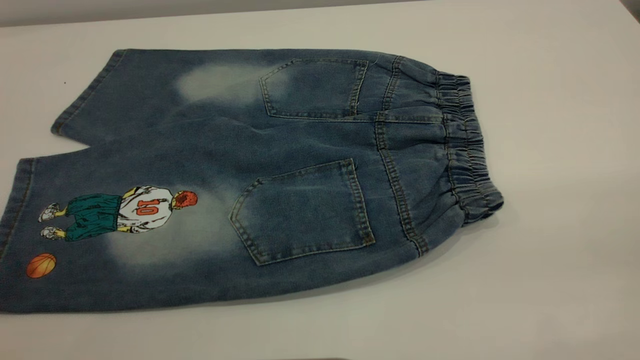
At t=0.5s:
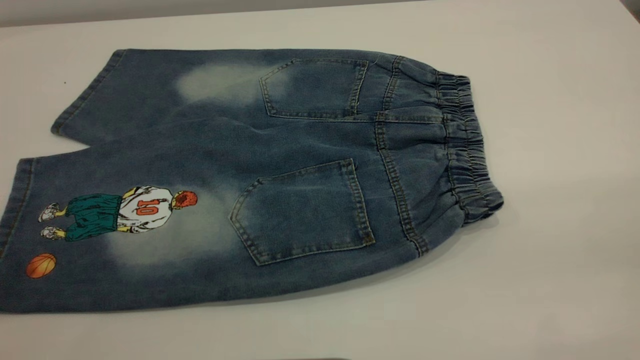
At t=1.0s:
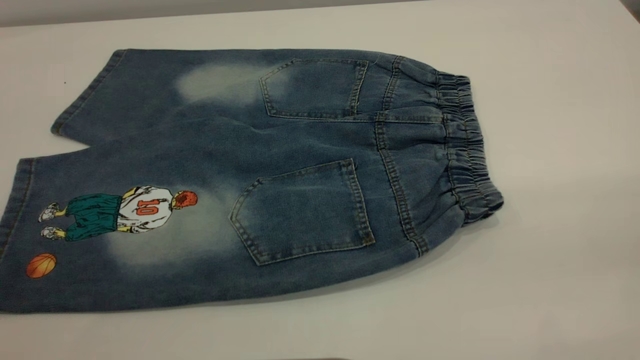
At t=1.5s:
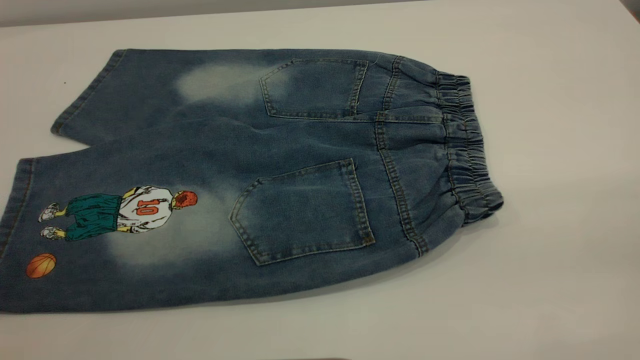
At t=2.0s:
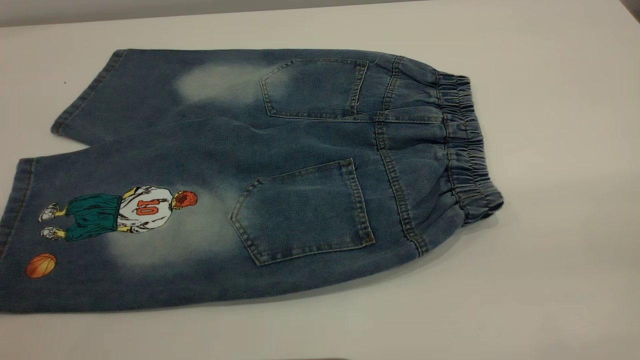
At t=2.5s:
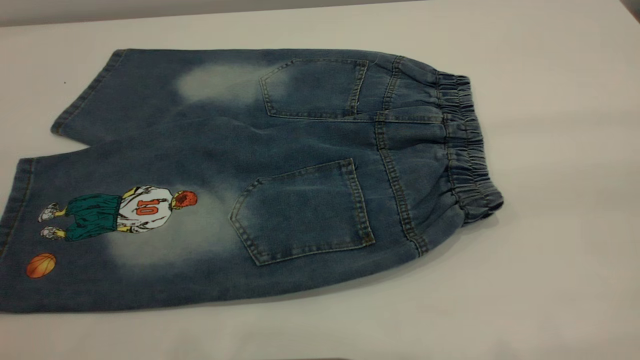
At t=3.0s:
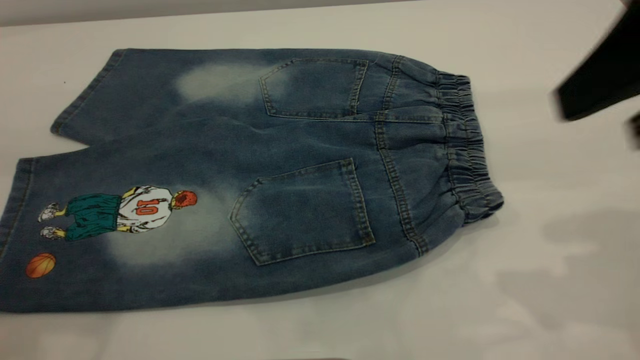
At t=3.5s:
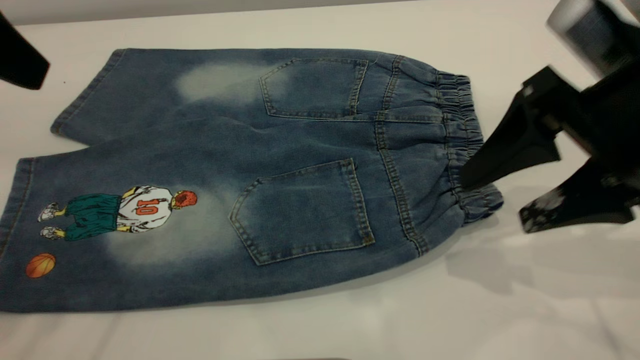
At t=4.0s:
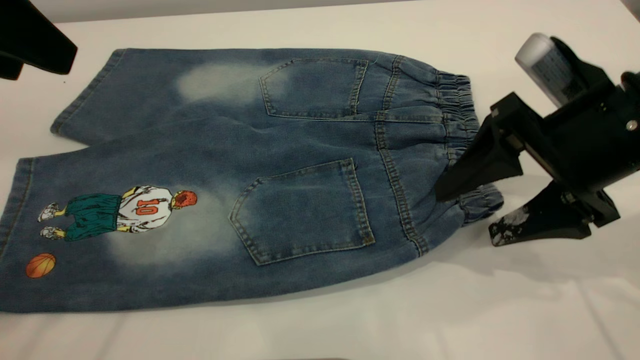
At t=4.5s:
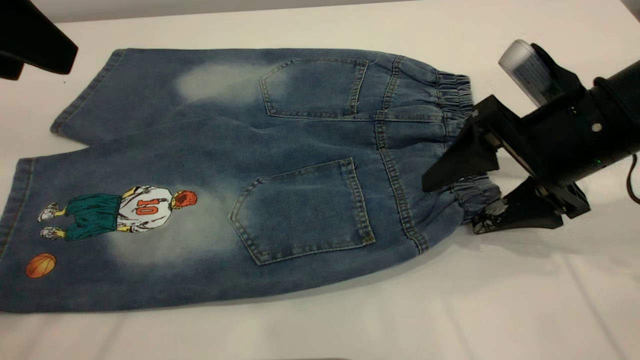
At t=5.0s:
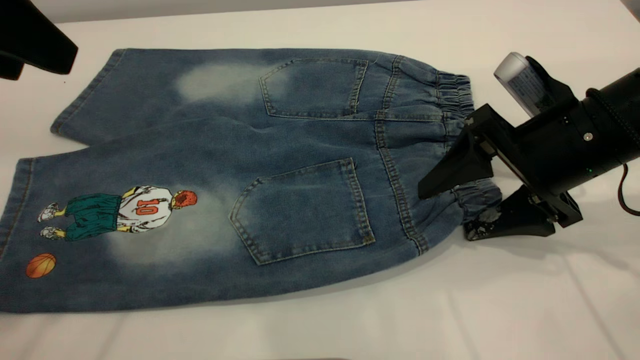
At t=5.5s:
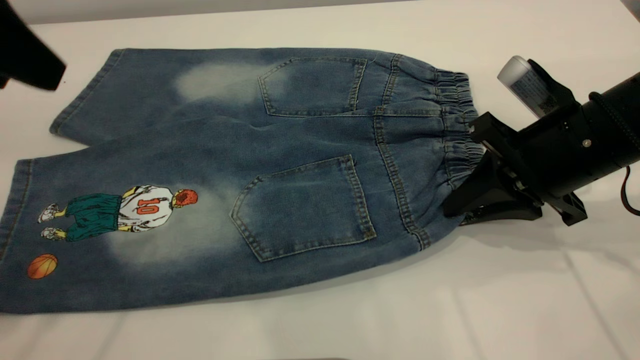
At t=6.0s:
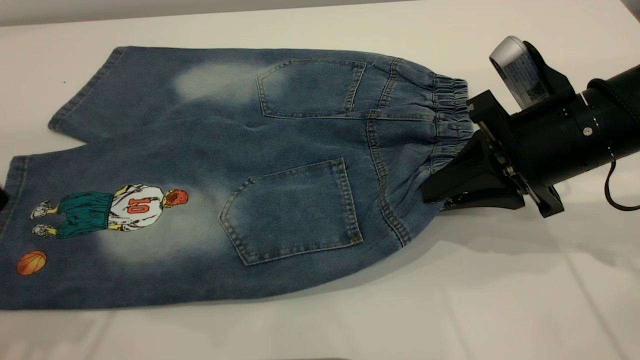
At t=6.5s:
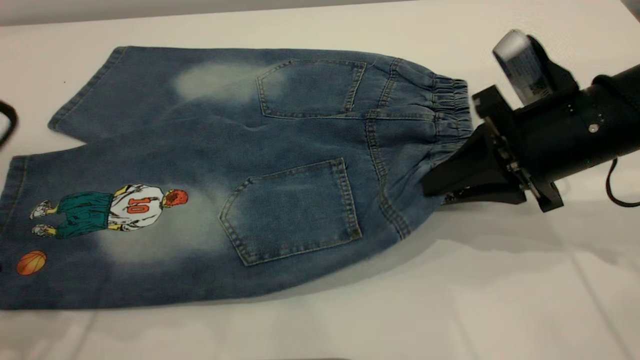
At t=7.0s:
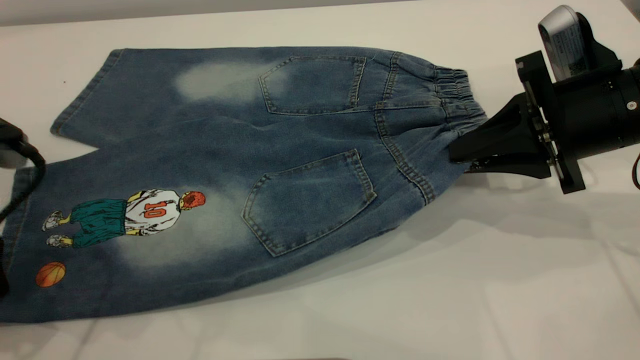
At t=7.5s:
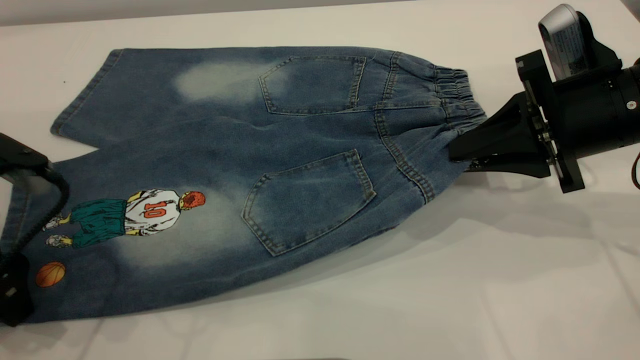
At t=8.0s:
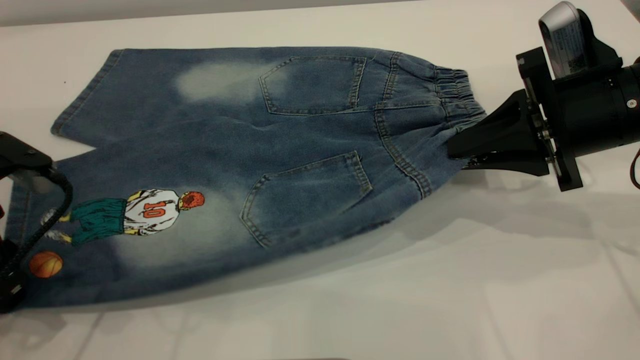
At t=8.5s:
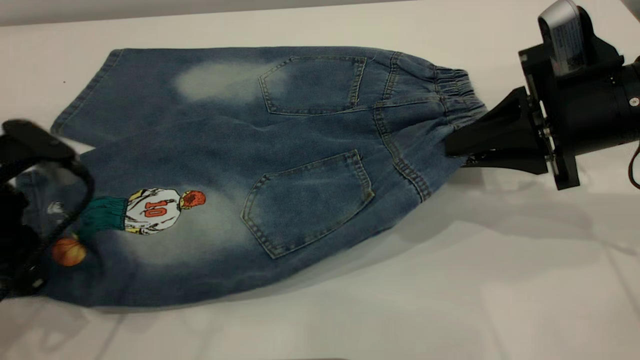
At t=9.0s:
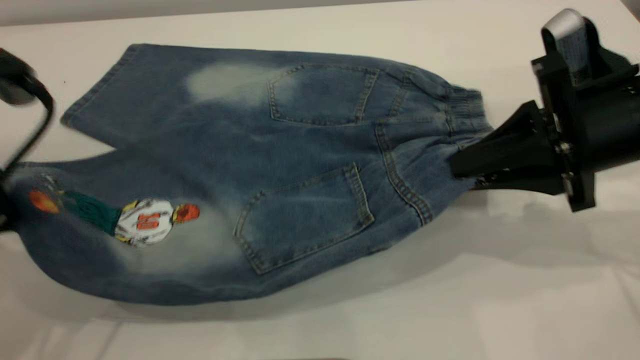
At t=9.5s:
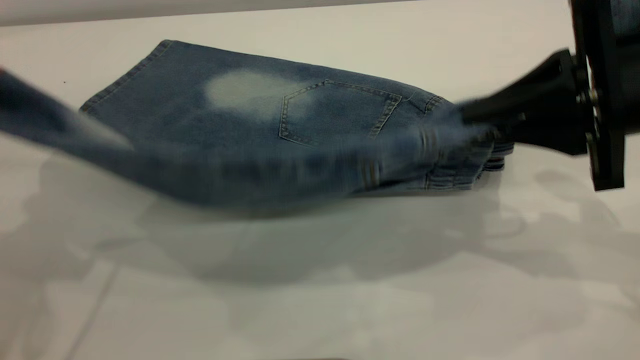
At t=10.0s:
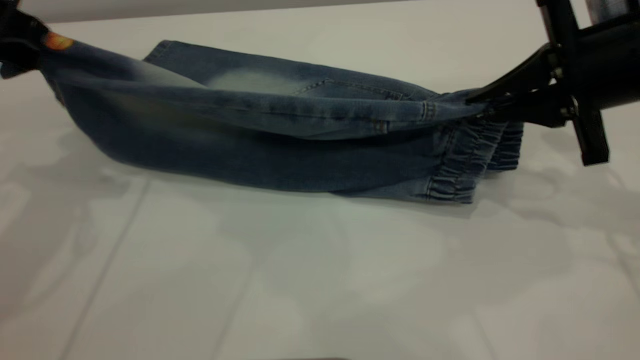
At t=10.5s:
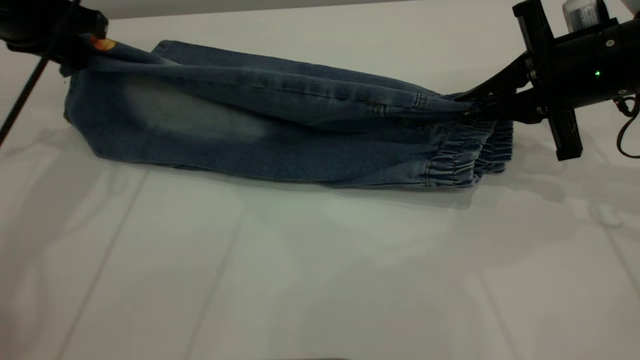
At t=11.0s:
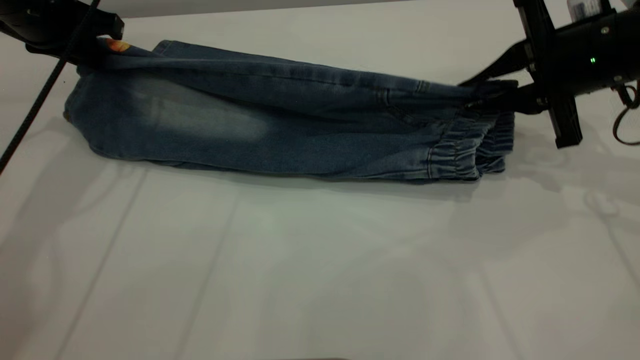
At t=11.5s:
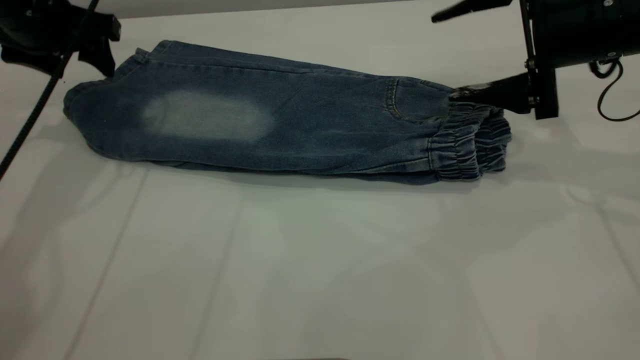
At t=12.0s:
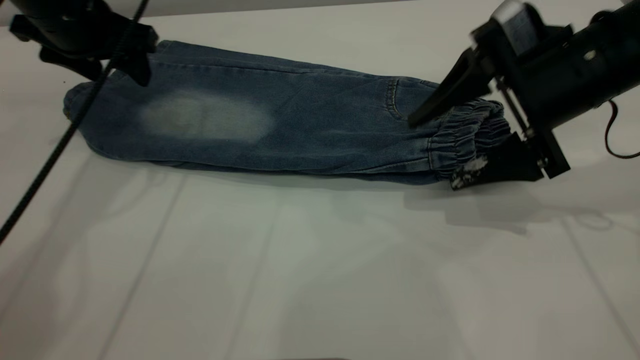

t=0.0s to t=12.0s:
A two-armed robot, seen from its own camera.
Step, t=0.0s to t=11.0s: Fold the bottom of the pants upward.
t=0.0s to t=2.0s: Both grippers stay put.
t=2.0s to t=4.0s: The right gripper moves forward and downward, about 35 cm. The left gripper heads forward, covering about 25 cm.
t=4.0s to t=6.0s: The right gripper closes up. Meanwhile the left gripper goes about 5 cm downward.
t=6.0s to t=8.0s: The left gripper heads downward, covering approximately 10 cm, and closes.
t=8.0s to t=10.0s: The left gripper travels upward and forward by roughly 15 cm.
t=10.0s to t=12.0s: The left gripper travels forward, downward and to the right by roughly 10 cm, and opens; the right gripper opens up.

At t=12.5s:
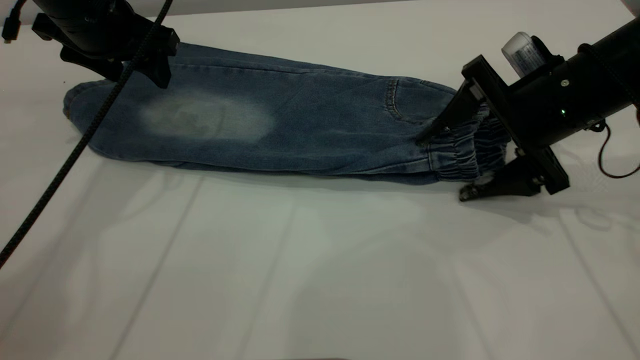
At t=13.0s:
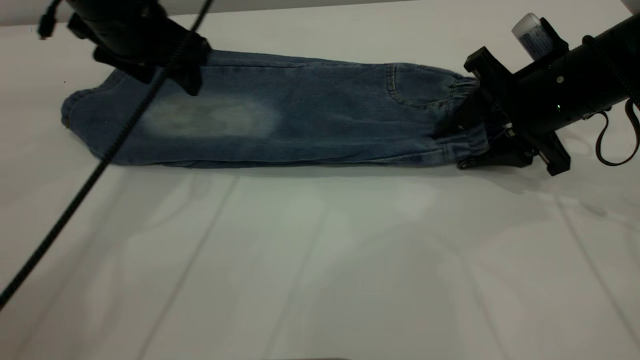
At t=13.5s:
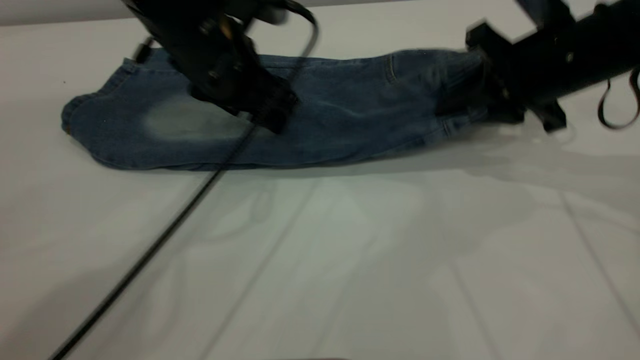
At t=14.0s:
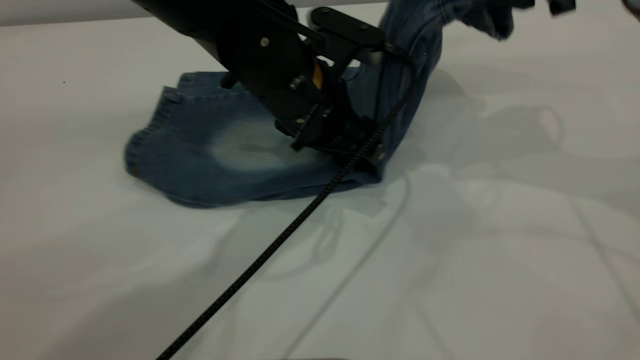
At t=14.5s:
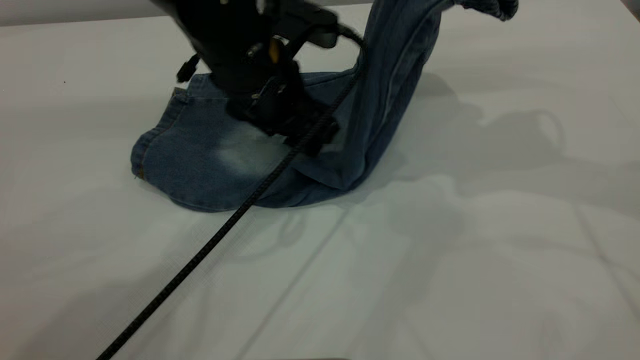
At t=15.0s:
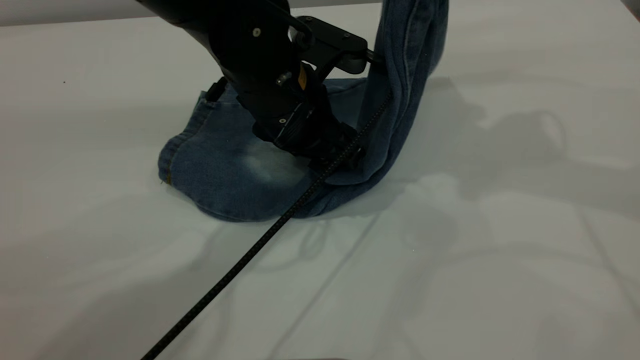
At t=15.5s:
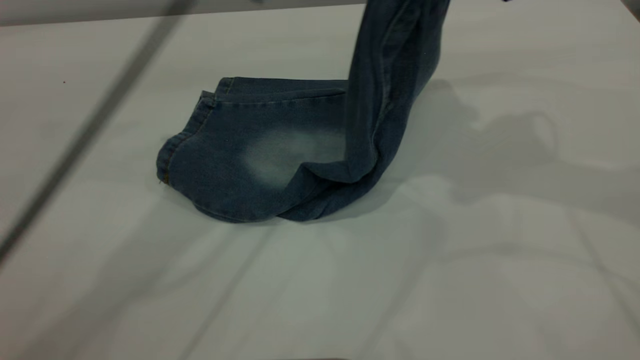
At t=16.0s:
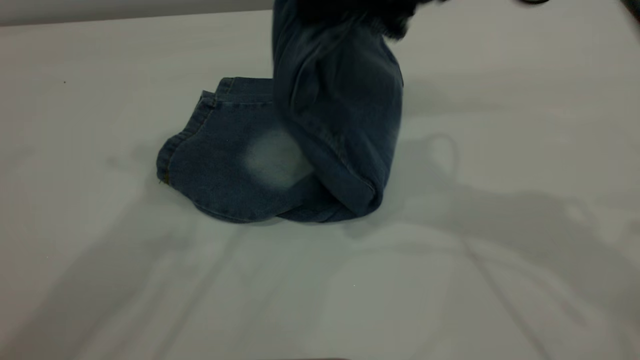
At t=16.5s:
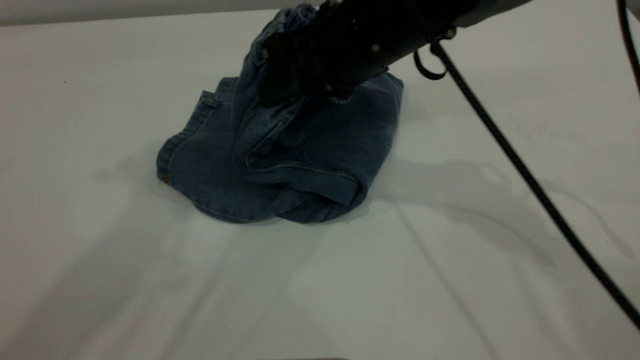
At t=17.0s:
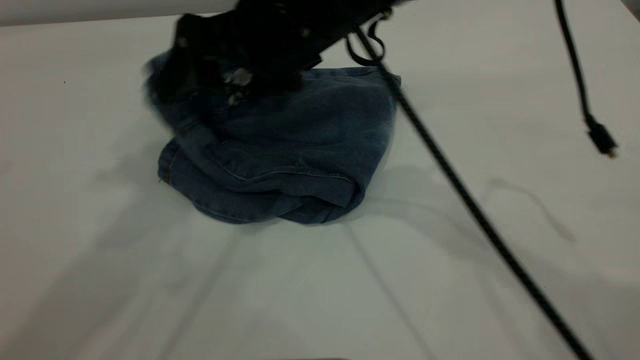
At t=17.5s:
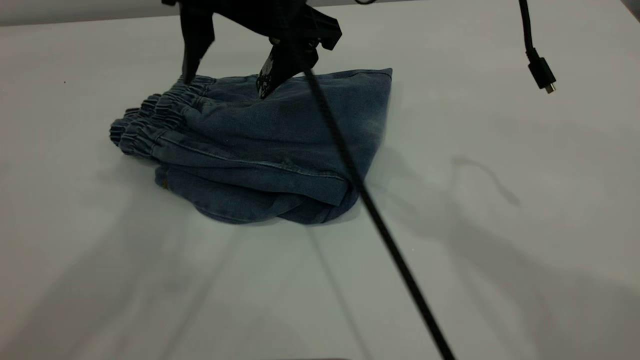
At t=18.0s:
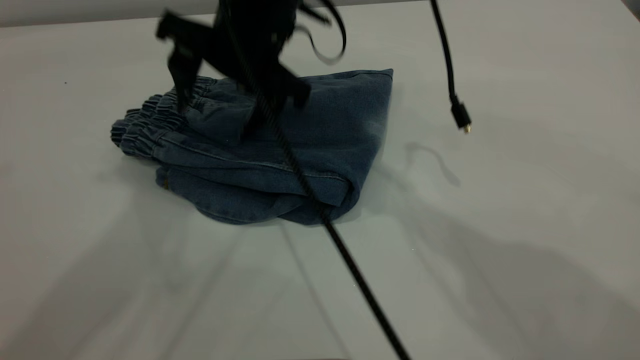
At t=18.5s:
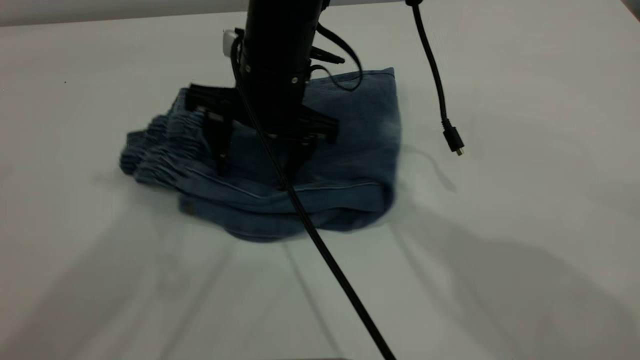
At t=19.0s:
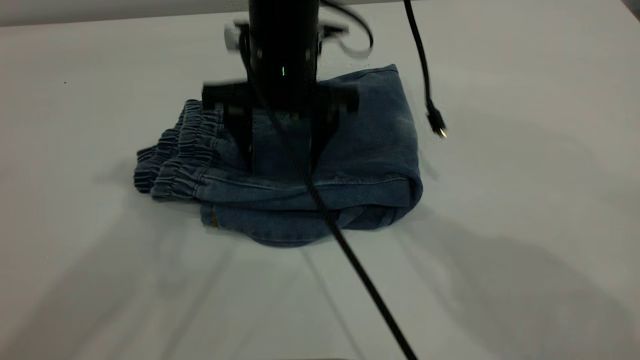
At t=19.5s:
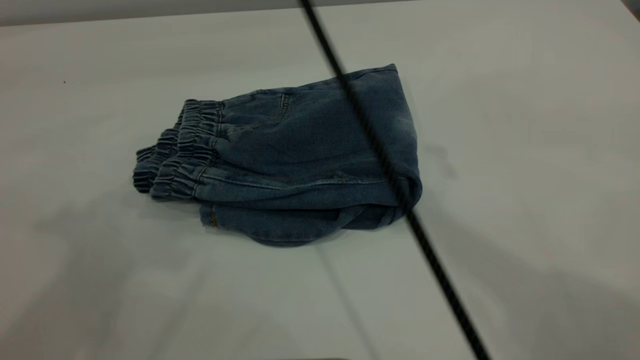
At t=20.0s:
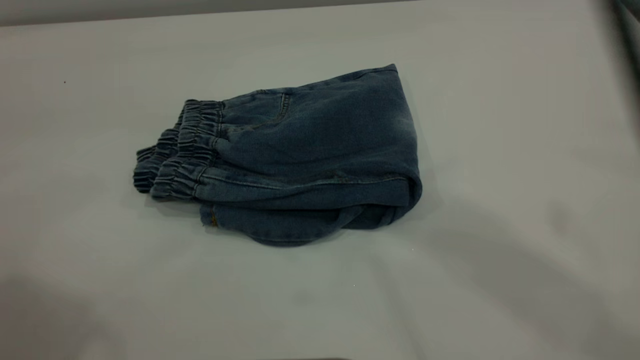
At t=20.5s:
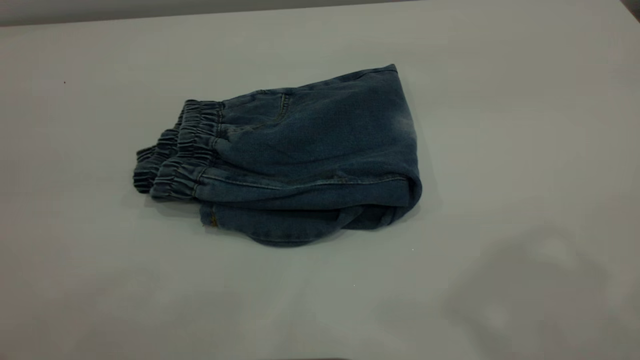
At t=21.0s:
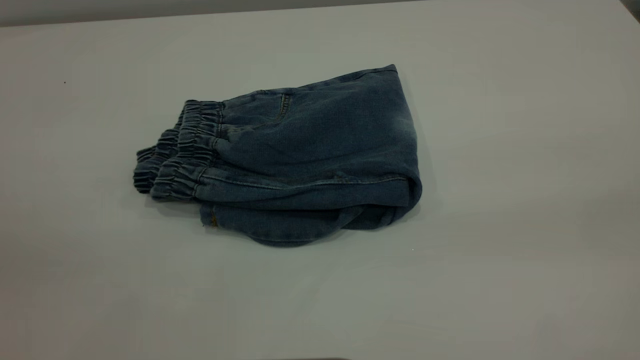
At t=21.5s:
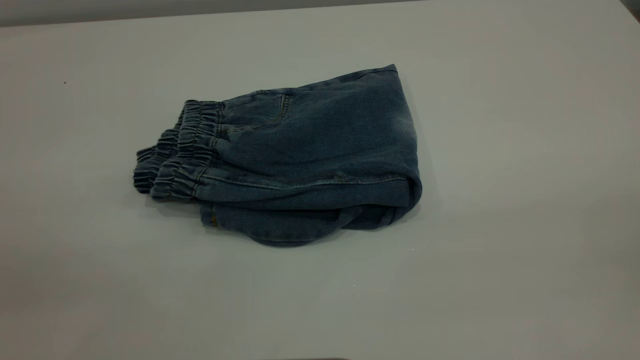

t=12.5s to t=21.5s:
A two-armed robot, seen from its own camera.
Step, t=12.5s to t=17.0s: Fold your pants from right to left.
t=12.5s to t=14.5s: The right gripper is displaced upward by some 15 cm, and closes its fingers, while the left gripper travels to the right by approximately 15 cm.
t=14.5s to t=17.0s: The right gripper goes roughly 20 cm to the left, and opens its fingers; the left gripper is displaced upward by about 30 cm.
t=17.0s to t=19.5s: The right gripper travels upward by approximately 15 cm, while the left gripper shifts about 5 cm backward.
t=19.5s to t=21.5s: The left gripper shifts approximately 25 cm backward, downward and to the left. The right gripper travels backward and to the right by some 50 cm.
